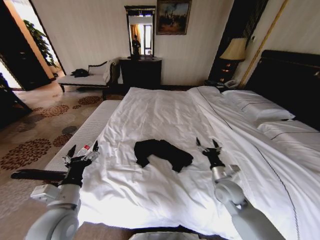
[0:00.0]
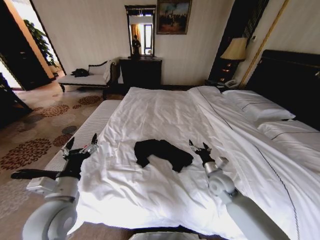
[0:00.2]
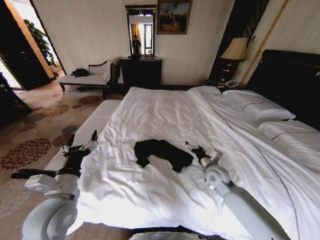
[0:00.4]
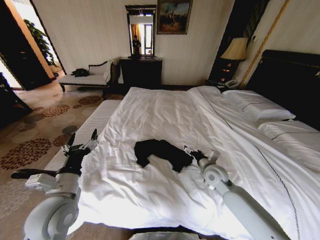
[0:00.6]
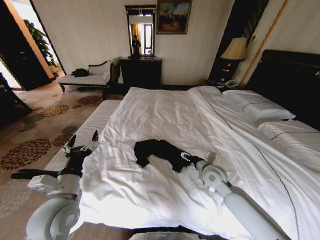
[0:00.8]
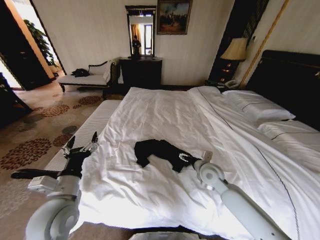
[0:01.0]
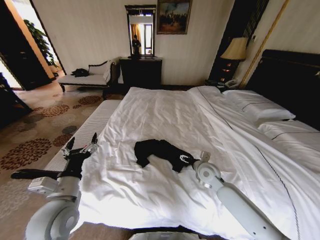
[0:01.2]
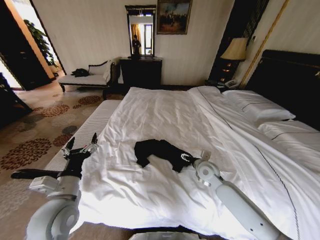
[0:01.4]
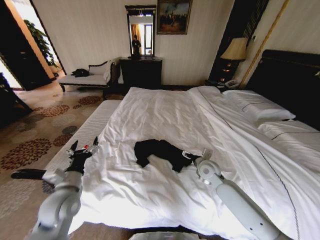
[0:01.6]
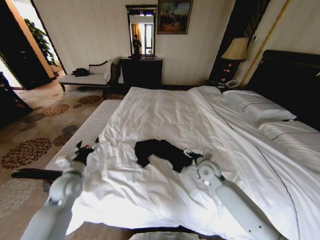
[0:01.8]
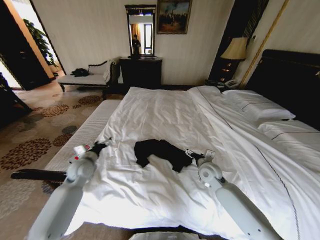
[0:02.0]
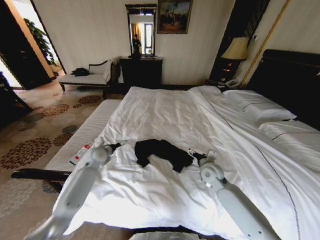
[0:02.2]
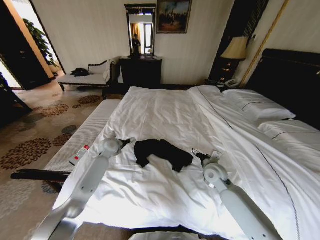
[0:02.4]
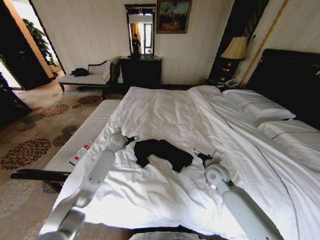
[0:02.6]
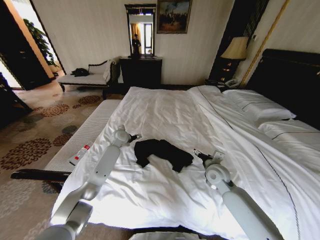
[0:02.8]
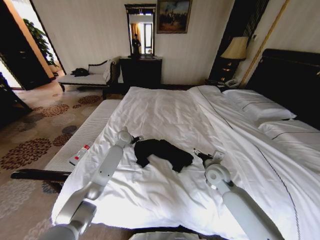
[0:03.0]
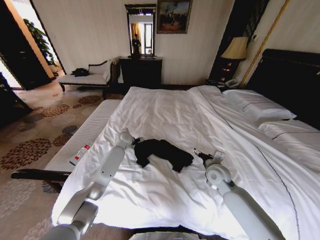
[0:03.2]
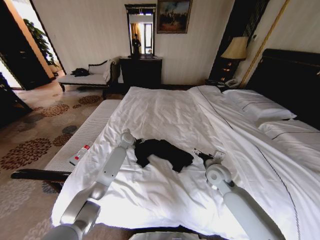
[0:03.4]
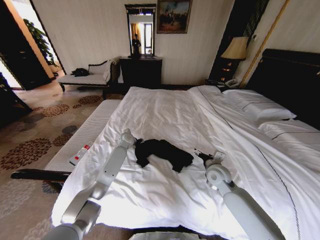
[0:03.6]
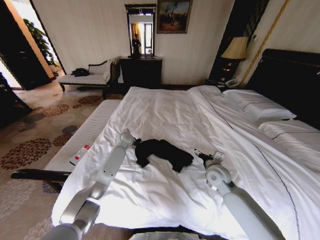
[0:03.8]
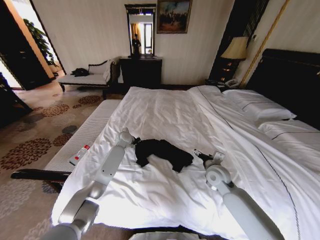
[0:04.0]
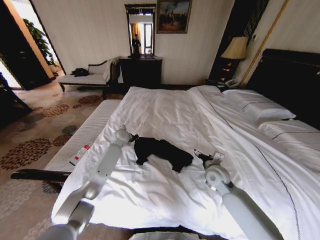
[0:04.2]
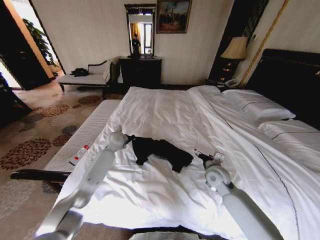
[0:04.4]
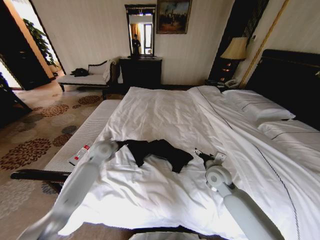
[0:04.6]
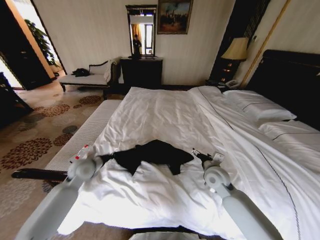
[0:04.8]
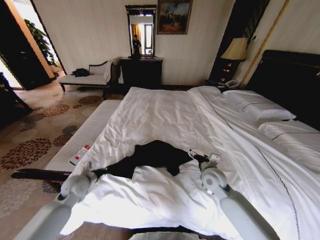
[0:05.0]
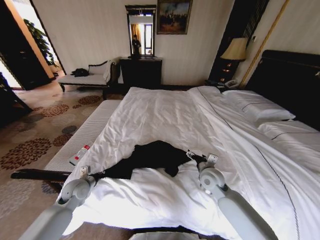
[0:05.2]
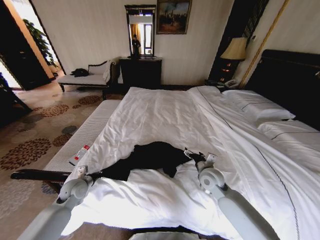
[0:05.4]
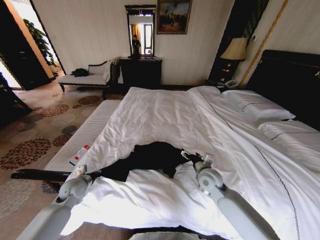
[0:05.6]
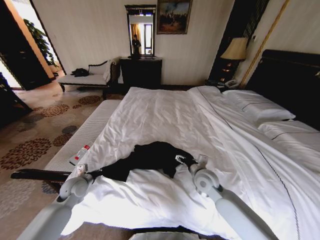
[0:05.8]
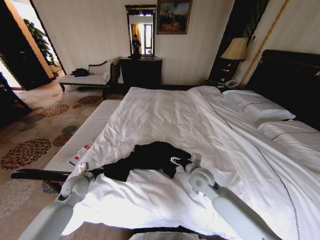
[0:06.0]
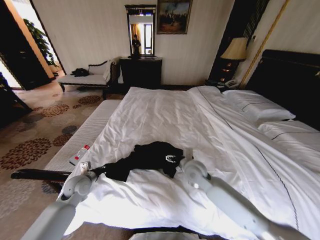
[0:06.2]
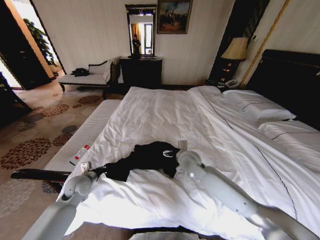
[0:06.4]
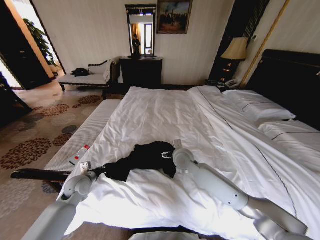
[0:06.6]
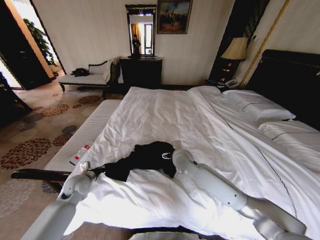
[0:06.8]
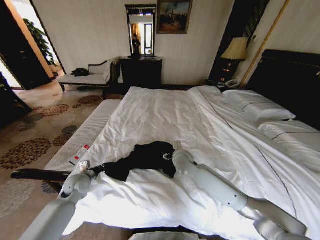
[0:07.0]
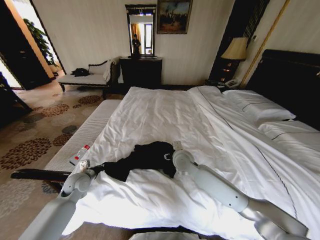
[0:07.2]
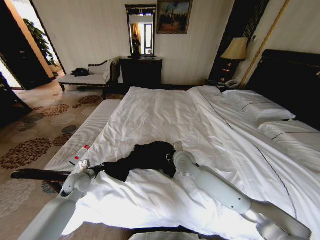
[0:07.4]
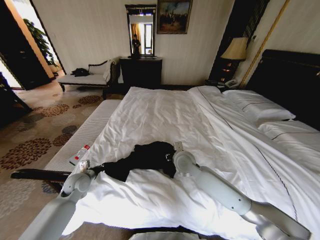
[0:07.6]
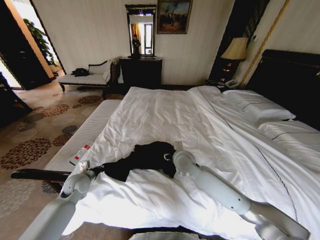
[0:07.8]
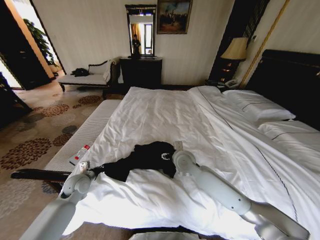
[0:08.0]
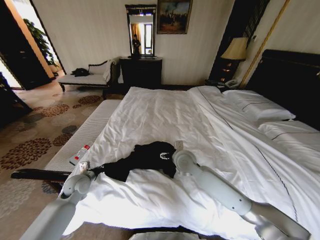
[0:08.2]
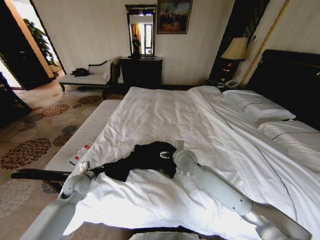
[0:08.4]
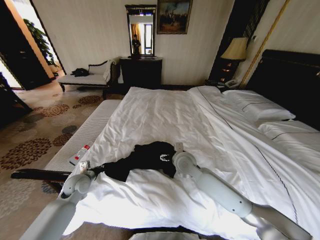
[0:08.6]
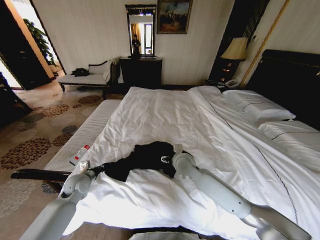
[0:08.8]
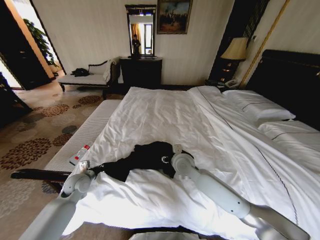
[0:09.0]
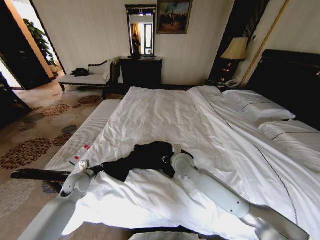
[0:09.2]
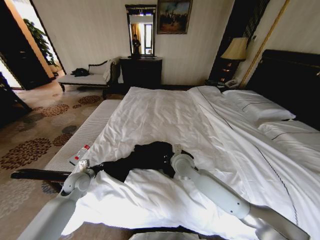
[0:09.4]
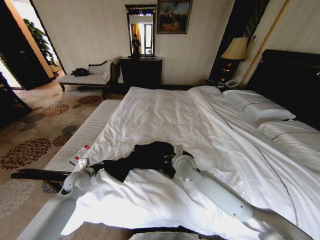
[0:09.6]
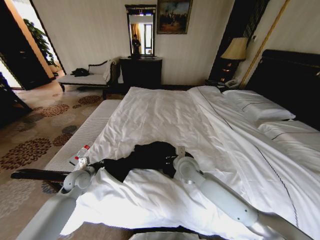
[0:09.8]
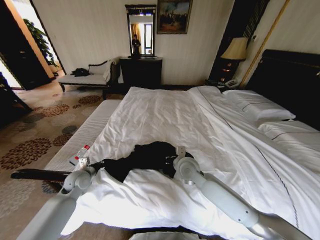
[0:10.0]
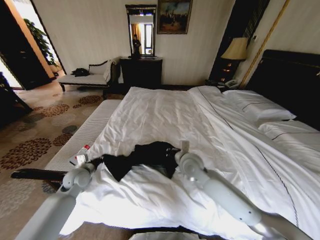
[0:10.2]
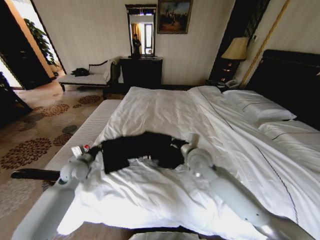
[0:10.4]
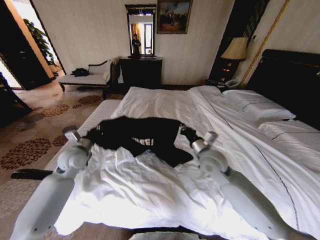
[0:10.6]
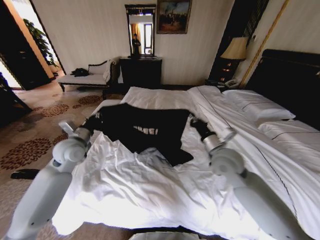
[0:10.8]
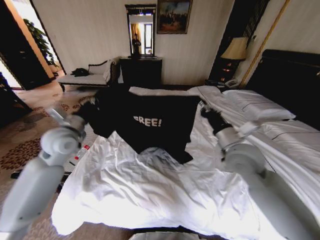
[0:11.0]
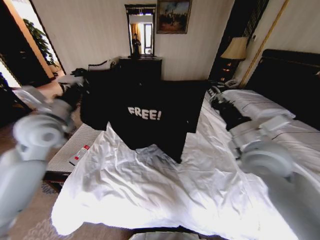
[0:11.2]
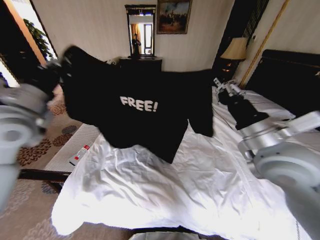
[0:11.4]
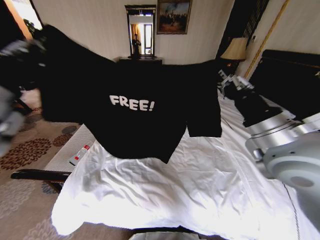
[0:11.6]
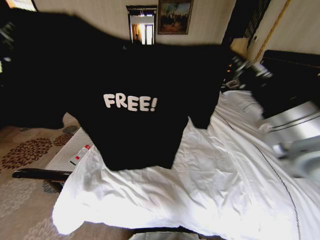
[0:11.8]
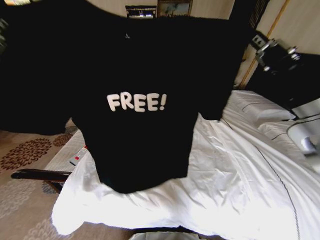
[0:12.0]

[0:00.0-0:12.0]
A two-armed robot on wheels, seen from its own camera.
Task of the whole recording: Fold the clothes on the bed.
0:00.0 to 0:01.6: The right gripper travels forward and to the left by roughly 10 cm. The left gripper heads forward, covering approximately 5 cm.
0:01.6 to 0:03.0: The left gripper moves forward, about 35 cm.
0:03.0 to 0:04.4: The left gripper is displaced backward by approximately 5 cm, and closes.
0:04.4 to 0:06.0: The left gripper is displaced backward, to the left and downward by roughly 25 cm. The right gripper is displaced to the left by approximately 10 cm.
0:06.0 to 0:07.6: The right gripper is displaced to the left and forward by about 10 cm, and closes its fingers.
0:07.6 to 0:09.0: The right gripper opens its fingers.
0:09.0 to 0:10.4: The right gripper is displaced upward and to the right by approximately 10 cm, and closes its fingers, while the left gripper heads upward, covering roughly 5 cm.
0:10.4 to 0:12.0: The left gripper is displaced upward and backward by about 35 cm. The right gripper goes roughly 30 cm upward, backward and to the right.

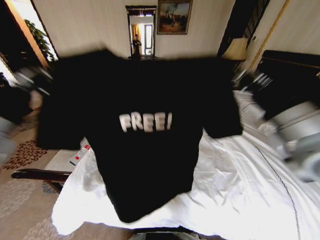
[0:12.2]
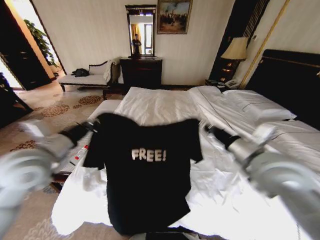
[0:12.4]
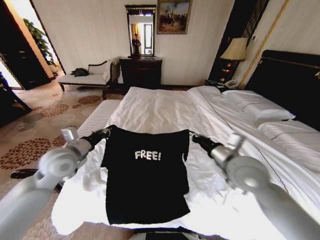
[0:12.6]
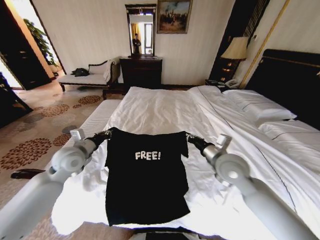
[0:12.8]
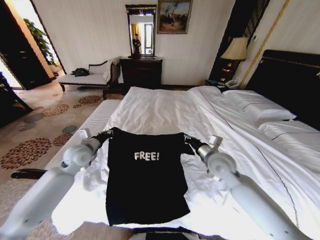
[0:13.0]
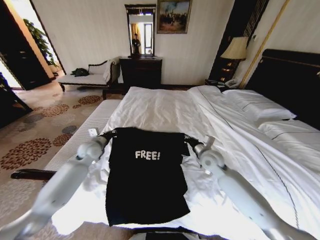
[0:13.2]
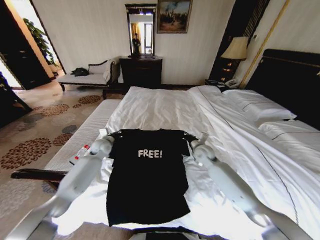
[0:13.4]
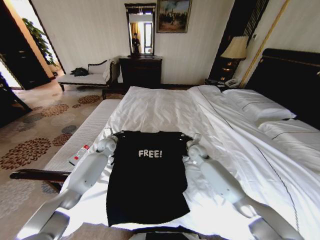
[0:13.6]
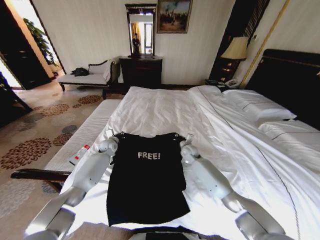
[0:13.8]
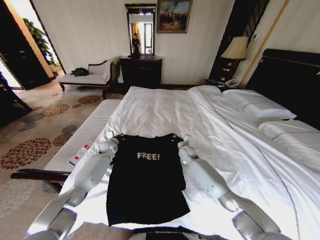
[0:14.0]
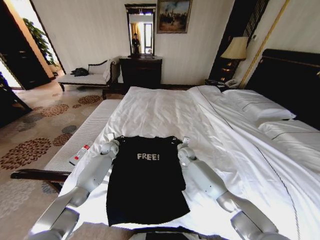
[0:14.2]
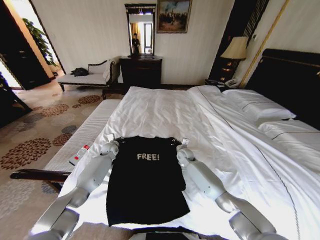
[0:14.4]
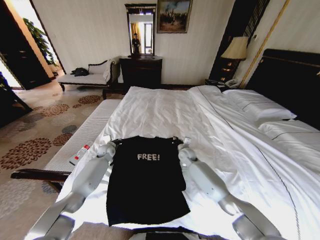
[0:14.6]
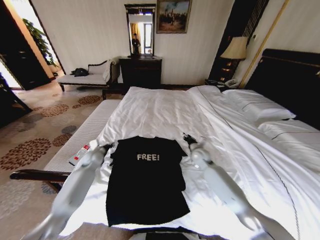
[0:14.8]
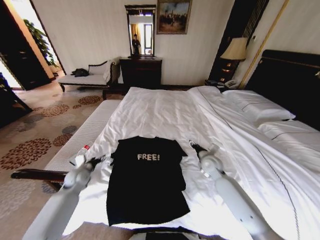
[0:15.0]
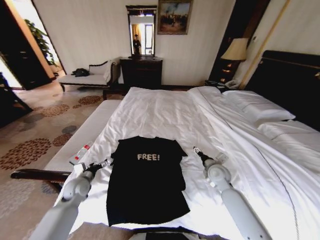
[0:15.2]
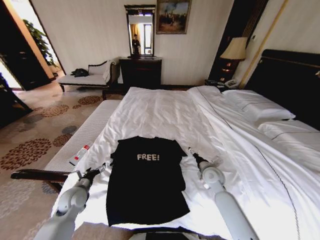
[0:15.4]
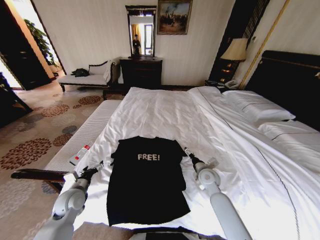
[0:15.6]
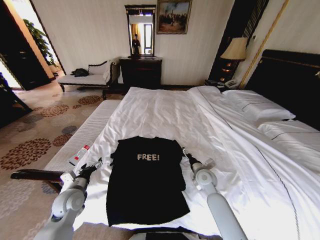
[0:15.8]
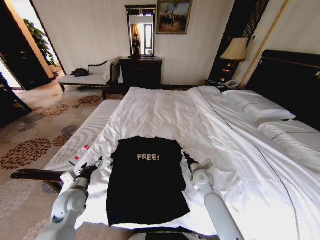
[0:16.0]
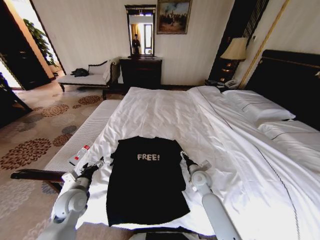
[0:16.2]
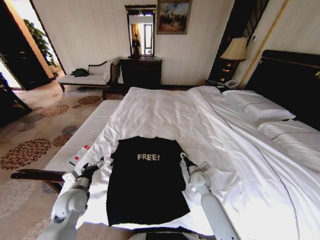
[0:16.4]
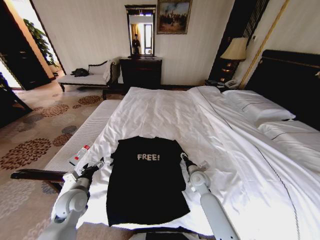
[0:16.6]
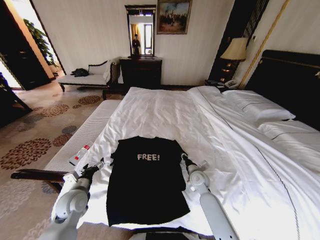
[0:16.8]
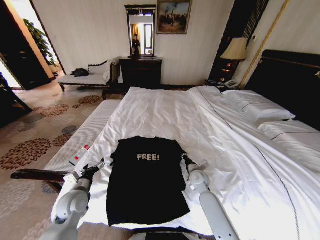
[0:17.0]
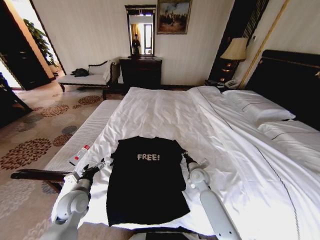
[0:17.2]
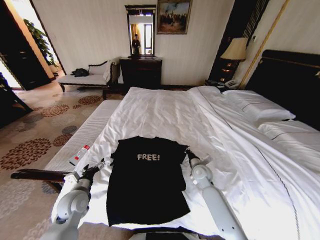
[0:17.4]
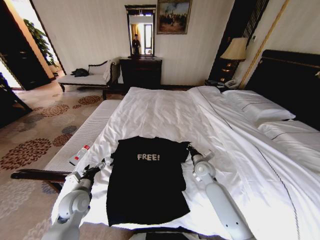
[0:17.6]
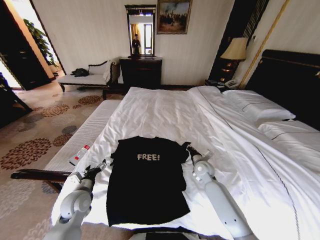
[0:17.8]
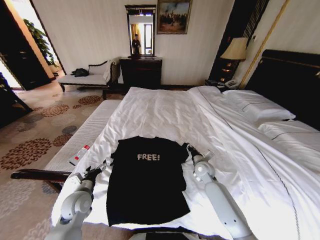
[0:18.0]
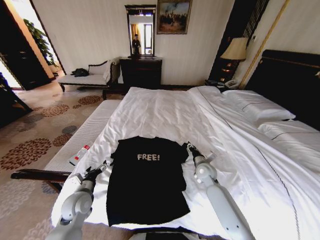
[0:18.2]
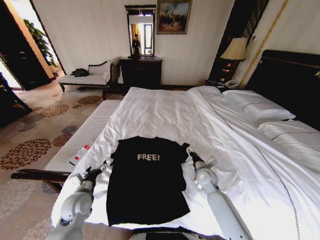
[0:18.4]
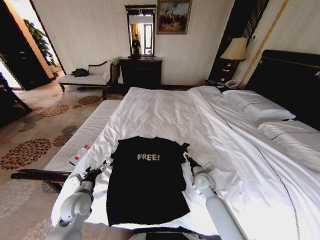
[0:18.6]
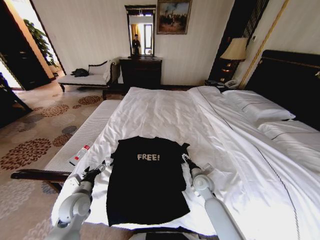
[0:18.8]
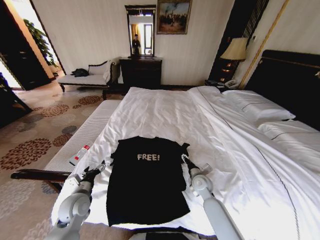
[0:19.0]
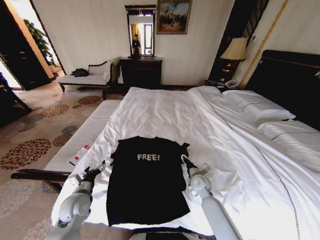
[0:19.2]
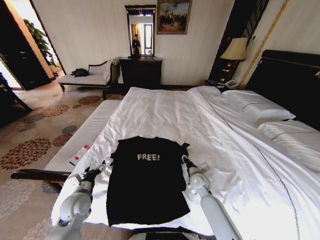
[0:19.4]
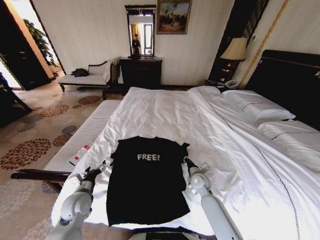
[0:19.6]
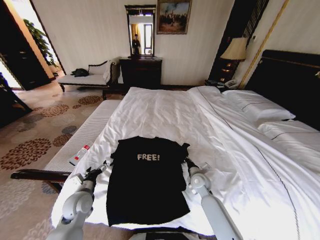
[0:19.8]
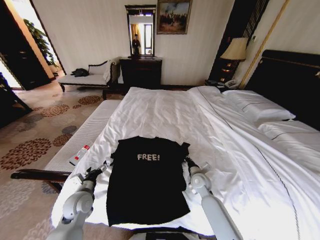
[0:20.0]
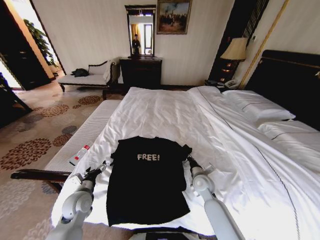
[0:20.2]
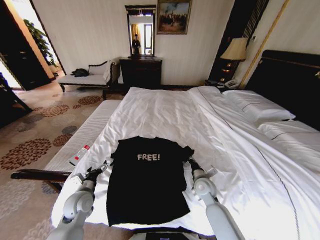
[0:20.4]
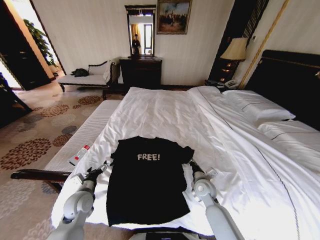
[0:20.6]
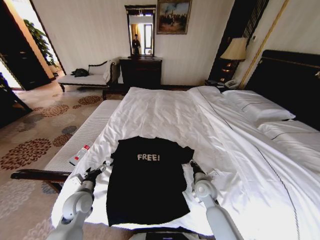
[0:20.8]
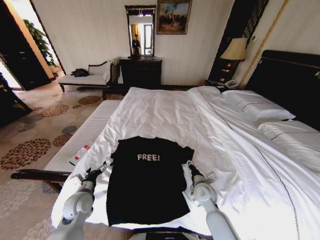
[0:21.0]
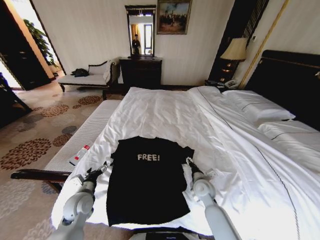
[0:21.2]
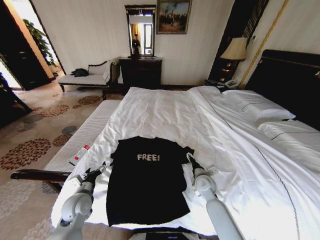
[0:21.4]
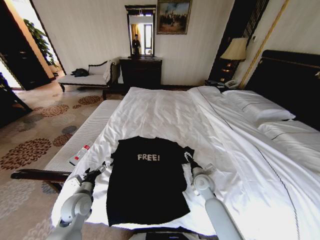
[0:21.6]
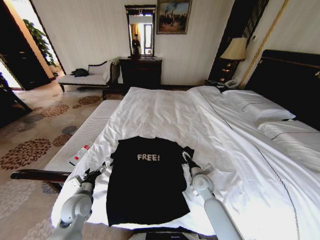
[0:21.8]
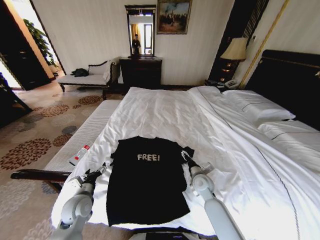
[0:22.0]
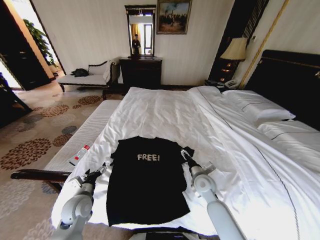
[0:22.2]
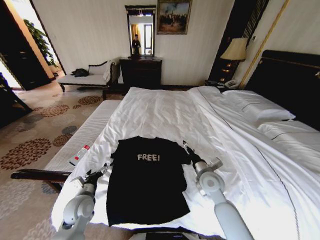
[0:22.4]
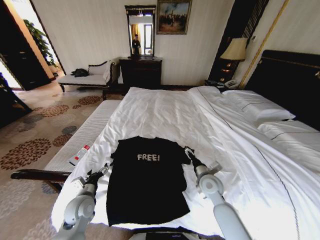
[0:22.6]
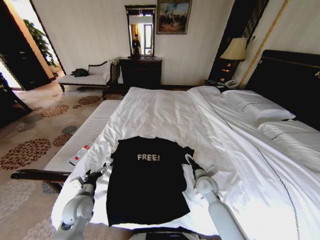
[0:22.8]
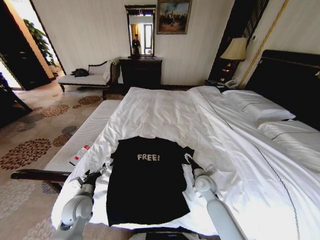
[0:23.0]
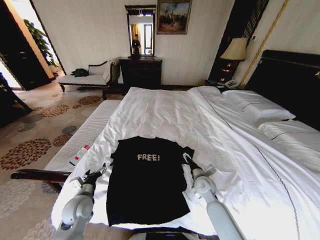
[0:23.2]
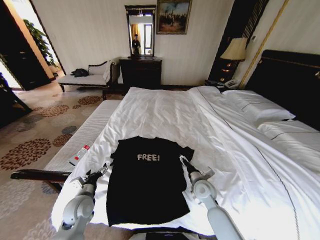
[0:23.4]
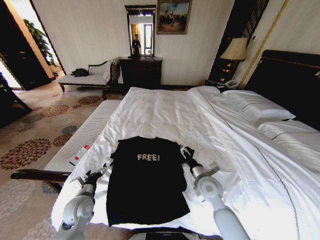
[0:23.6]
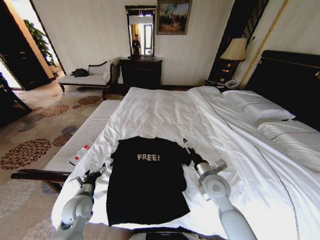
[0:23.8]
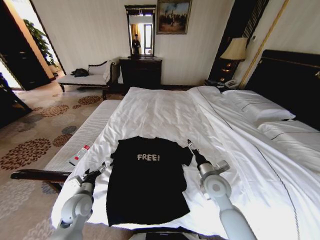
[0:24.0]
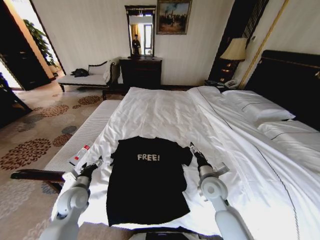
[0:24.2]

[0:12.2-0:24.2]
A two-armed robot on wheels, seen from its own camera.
Task of the whole recording: Fold the clothes on the bed.
0:12.2 to 0:13.8: The grippers both shift downward and forward by approximately 40 cm.
0:13.8 to 0:15.2: The right gripper shifts some 15 cm backward and to the right, and opens up. The left gripper shifts about 25 cm backward, and opens.
0:15.2 to 0:16.6: The left gripper is displaced backward by some 5 cm. Meanwhile the right gripper travels to the left and downward by approximately 10 cm.
0:16.6 to 0:18.2: The right gripper moves some 5 cm, and closes, then opens again.
0:18.2 to 0:19.8: The right gripper ends up some 5 cm from where it was, and closes.
0:19.8 to 0:21.2: The right gripper opens its fingers.
0:22.6 to 0:24.2: The right gripper reaches about 5 cm upward, then returns.
